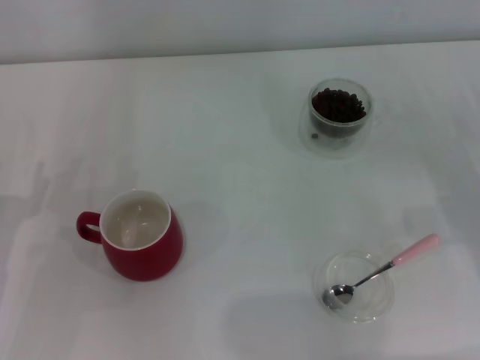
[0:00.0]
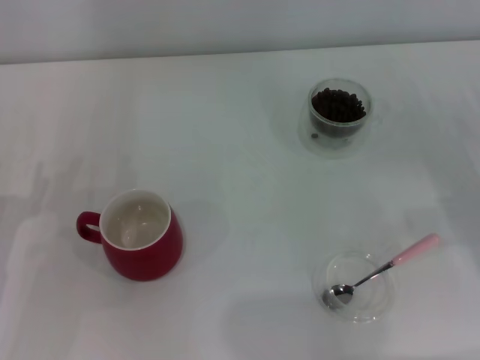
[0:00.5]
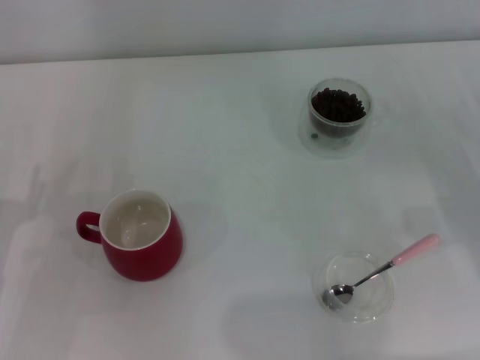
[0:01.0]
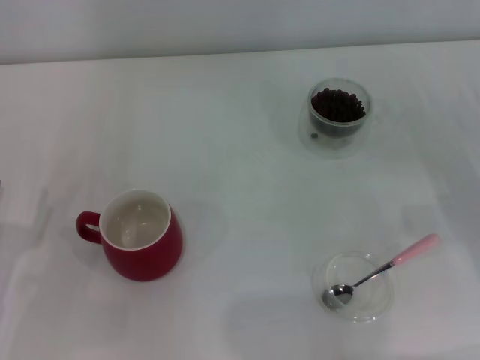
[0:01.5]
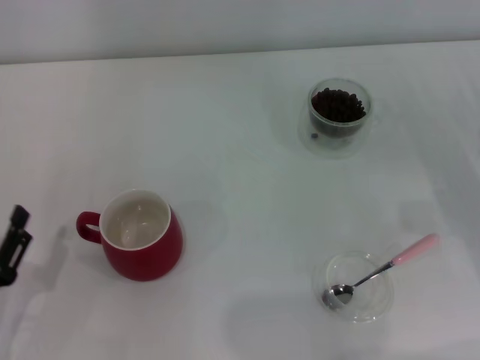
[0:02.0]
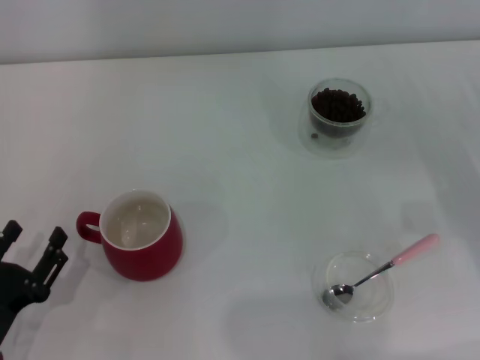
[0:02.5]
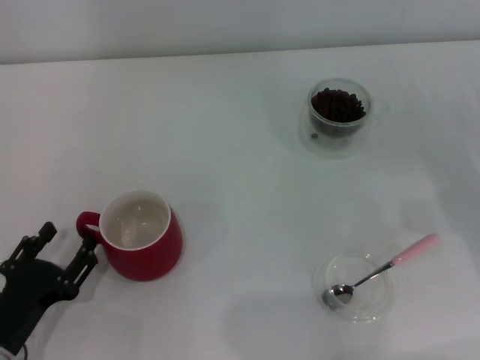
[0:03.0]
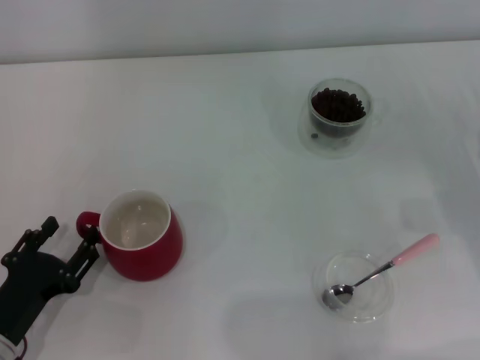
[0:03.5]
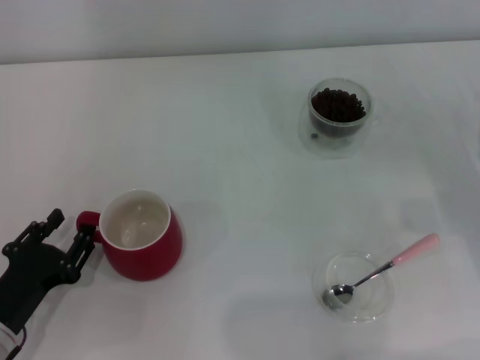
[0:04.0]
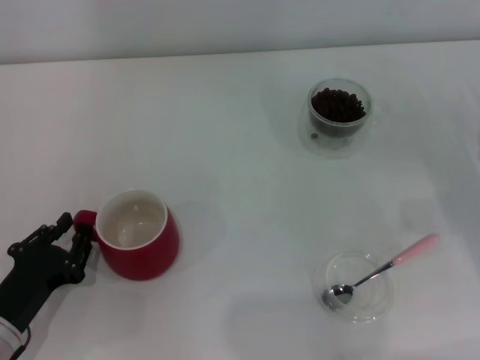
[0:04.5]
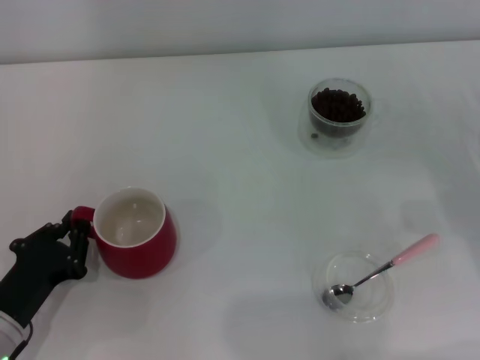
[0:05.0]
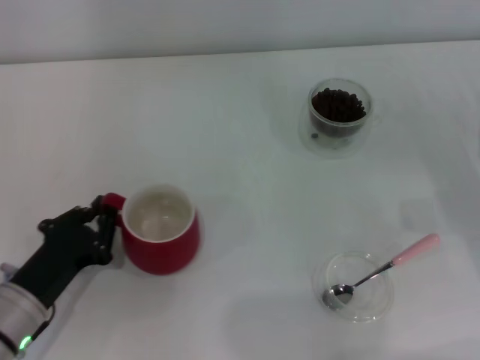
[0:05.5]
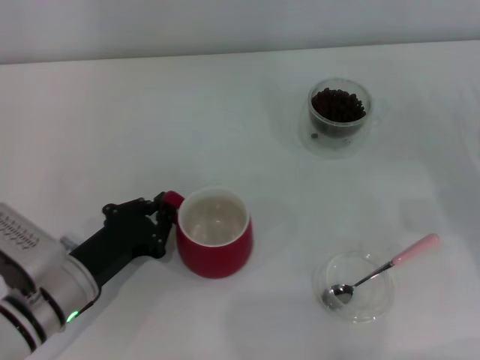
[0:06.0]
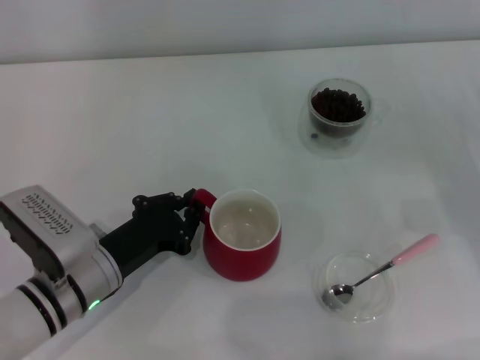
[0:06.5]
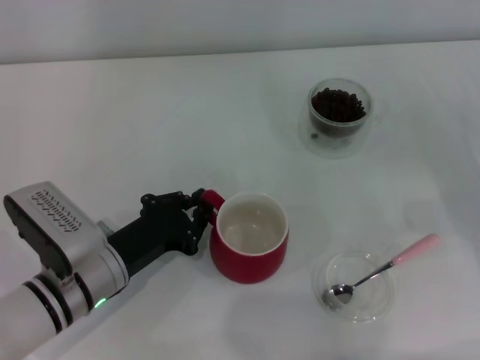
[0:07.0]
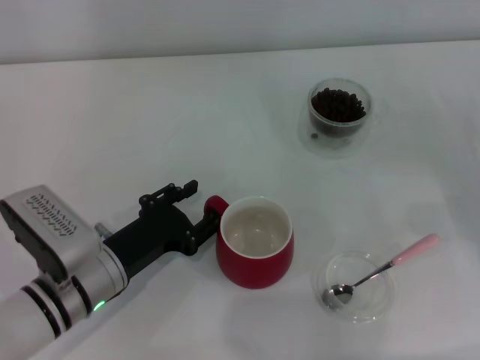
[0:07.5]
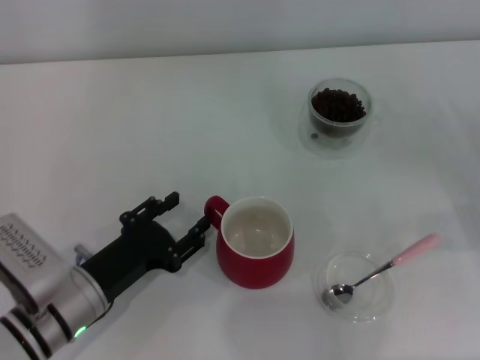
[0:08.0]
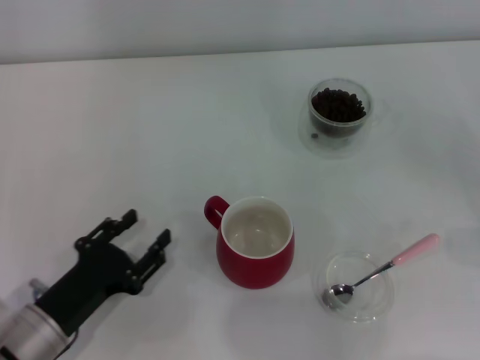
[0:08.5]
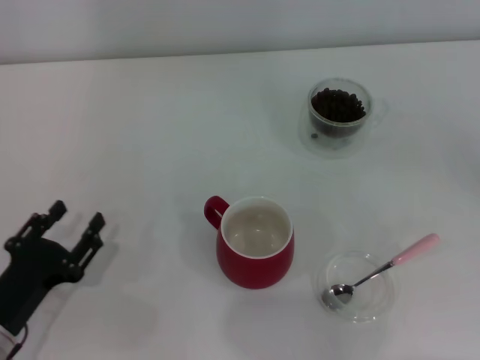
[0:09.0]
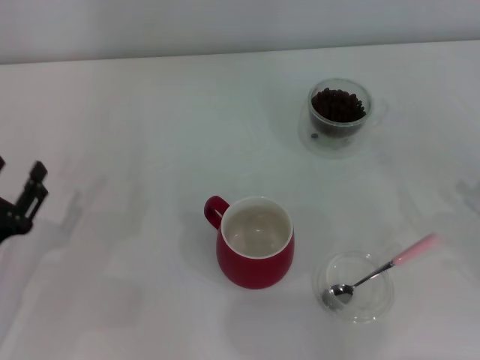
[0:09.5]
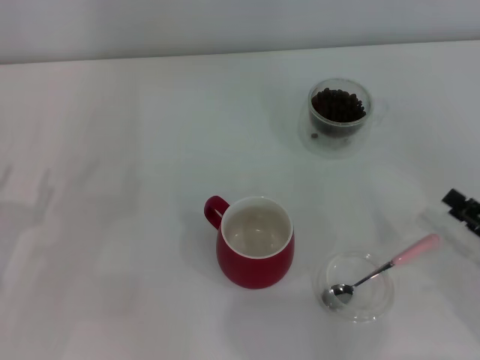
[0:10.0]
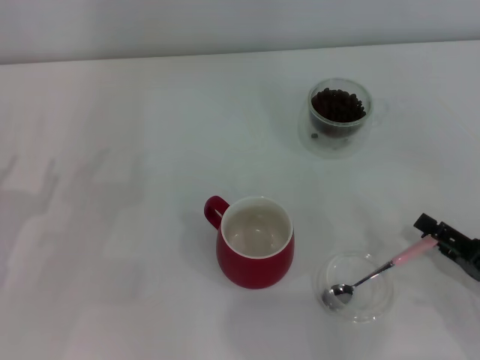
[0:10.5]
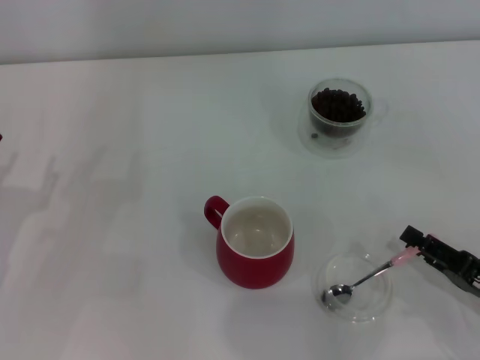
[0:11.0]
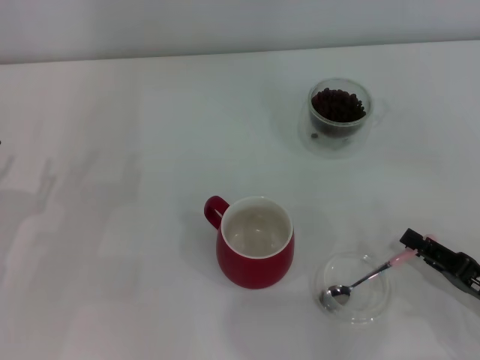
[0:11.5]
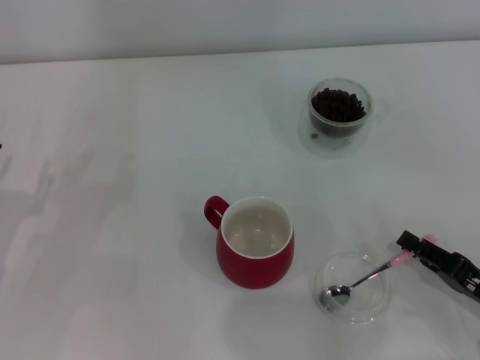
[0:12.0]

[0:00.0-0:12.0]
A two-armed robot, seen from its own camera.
Task of the whole recording: Use a pink spoon to take out the coffee beans from the glass and pour them into the red cup.
Step, 0:00.0 to 0:08.0: Move the cup to the center of view with the left gripper.
0:00.0 to 0:02.0: The left gripper is displaced backward by approximately 10 cm.
0:02.0 to 0:04.0: There are only small adjustments of the grippers.
0:04.0 to 0:06.0: The left gripper is displaced to the right and forward by about 10 cm, and closes its fingers.
0:06.0 to 0:08.0: The left gripper opens up.
0:08.0 to 0:10.0: The left gripper shifts roughly 10 cm to the left. The right gripper moves backward, about 10 cm, and opens up.
0:10.0 to 0:12.0: The right gripper closes up.

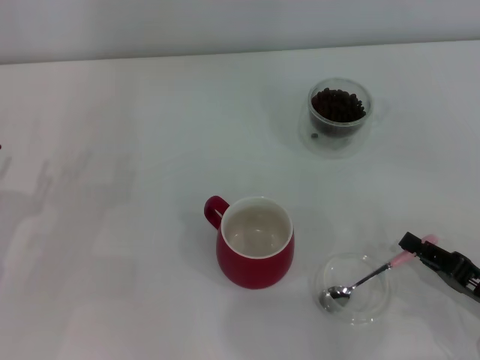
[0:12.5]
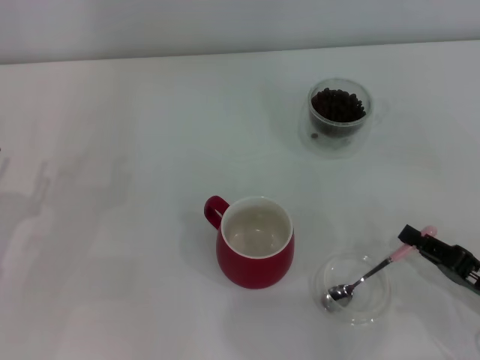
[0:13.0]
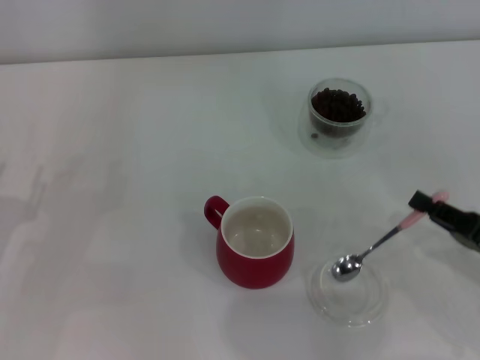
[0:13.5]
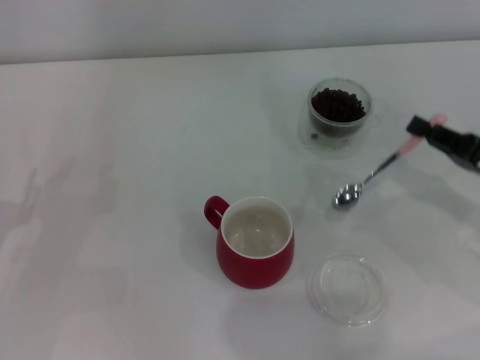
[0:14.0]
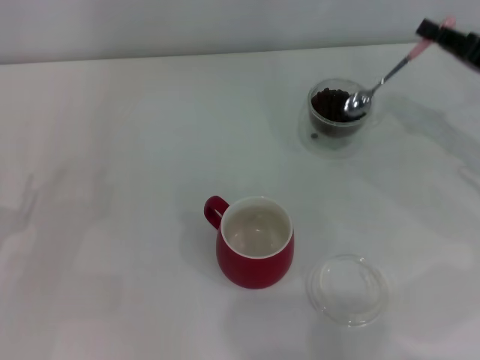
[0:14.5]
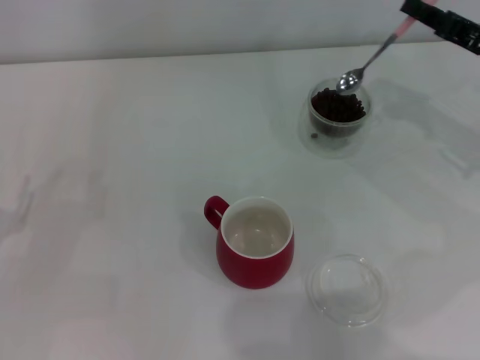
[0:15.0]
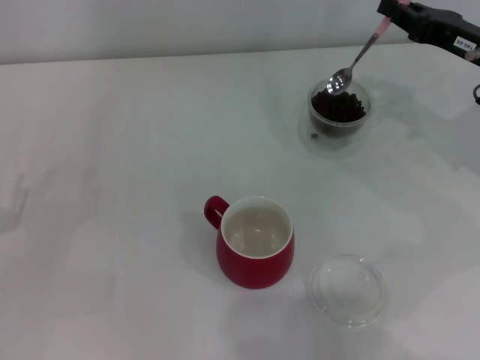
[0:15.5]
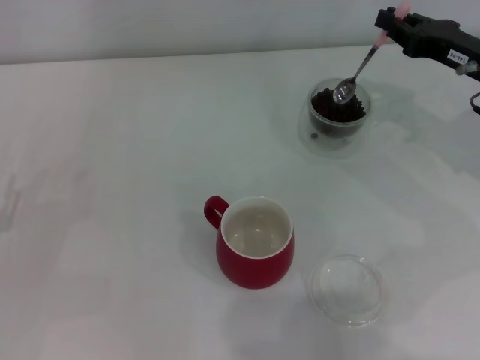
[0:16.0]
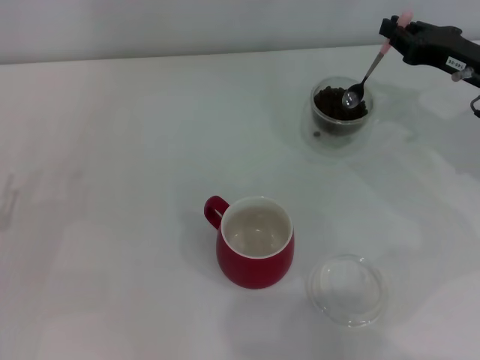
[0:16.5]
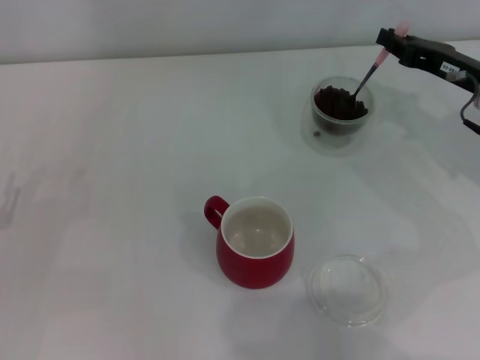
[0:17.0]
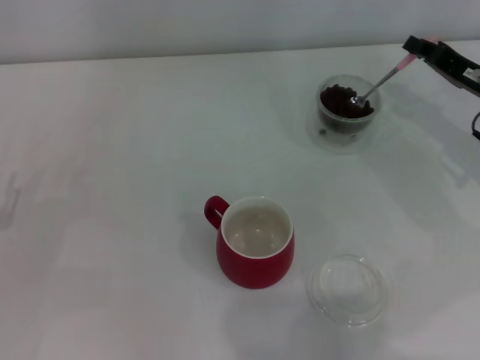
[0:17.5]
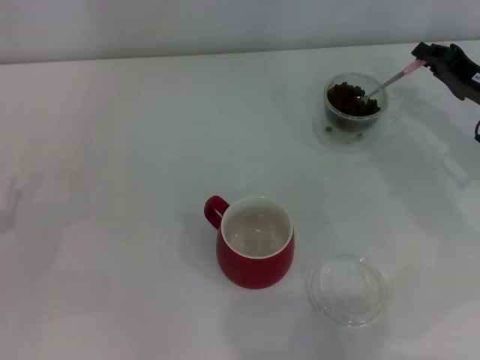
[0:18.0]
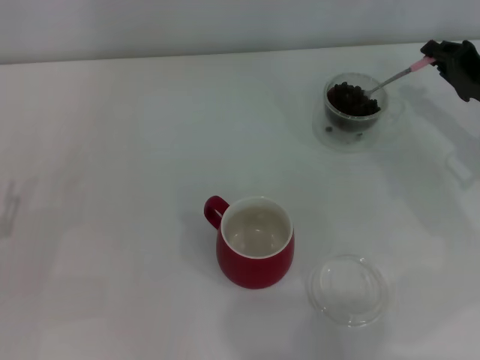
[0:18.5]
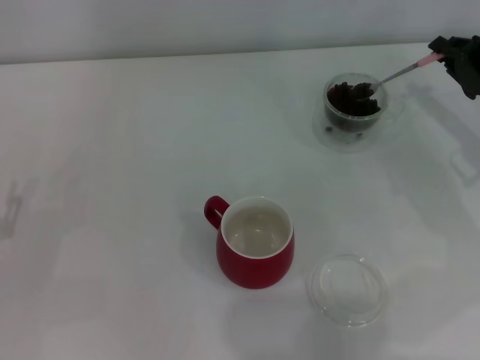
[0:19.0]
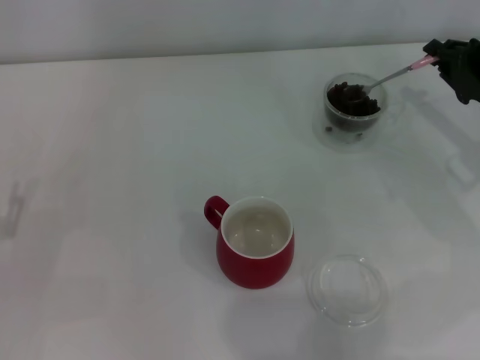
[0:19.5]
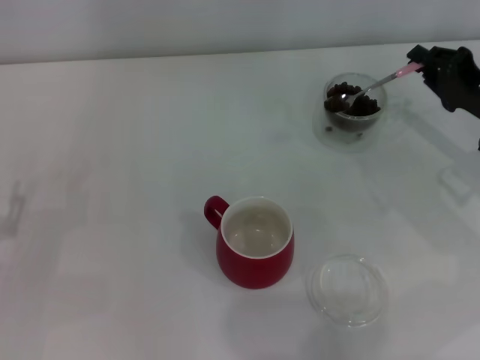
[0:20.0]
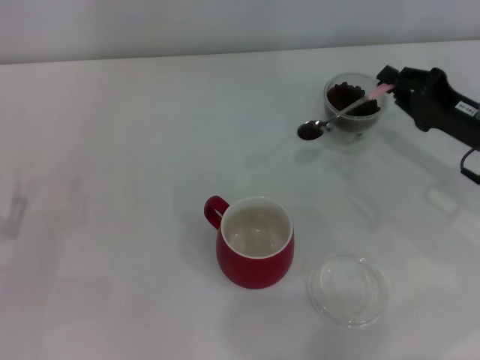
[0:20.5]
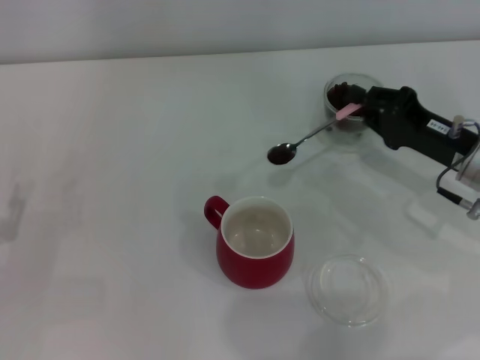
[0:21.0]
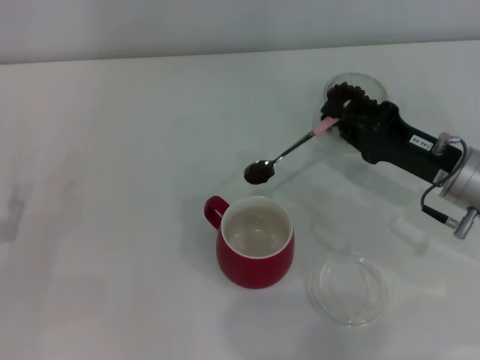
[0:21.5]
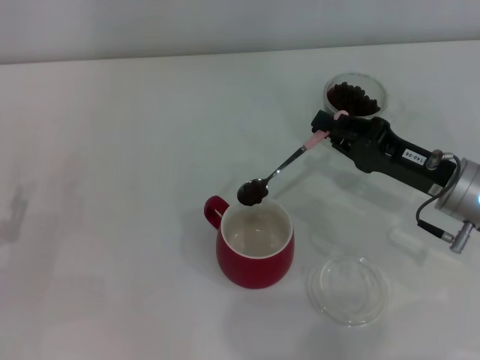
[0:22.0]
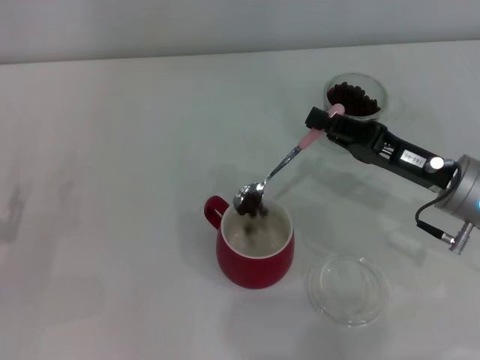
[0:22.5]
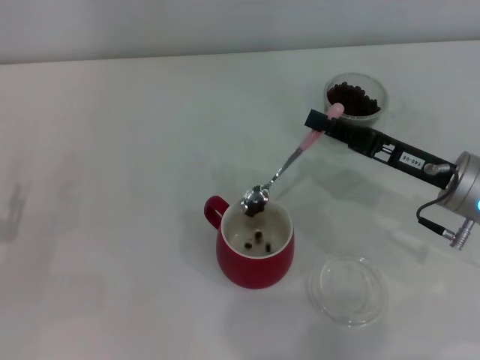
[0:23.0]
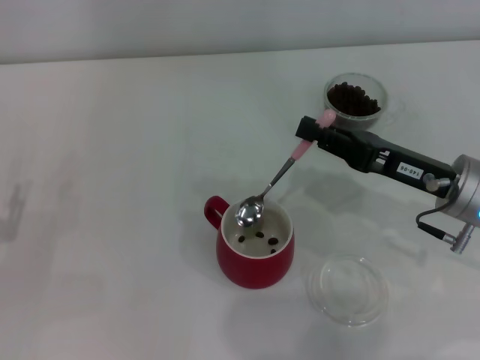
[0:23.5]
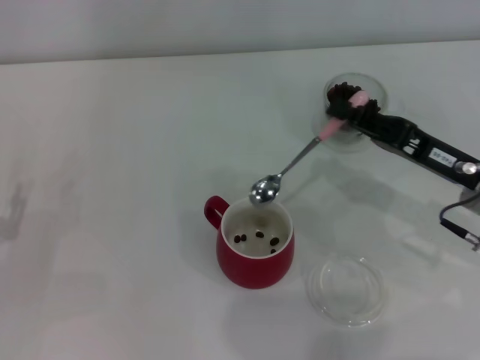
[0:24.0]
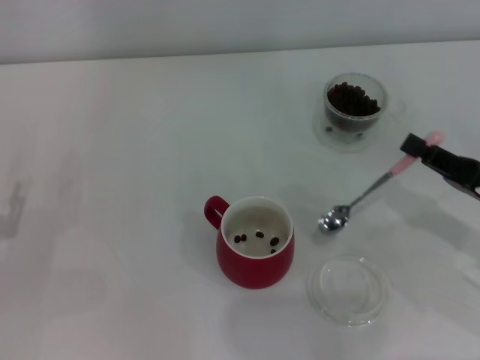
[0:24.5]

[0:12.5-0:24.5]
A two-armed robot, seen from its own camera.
Task of the whole recording: Use a pink spoon to take out the coffee beans from the glass and pour them into the red cup.
Step, 0:14.0 to 0:23.5: Scoop a spoonful of beans into the cup with the right gripper.
0:12.5 to 0:14.5: The right gripper goes about 20 cm forward and upward.
0:14.5 to 0:16.5: The right gripper changes place by some 5 cm.
0:18.5 to 0:20.5: There are only small adjustments of the grippers.
0:20.5 to 0:22.5: The right gripper shifts roughly 5 cm to the left.
0:22.5 to 0:24.5: The right gripper travels to the right and backward by approximately 10 cm.

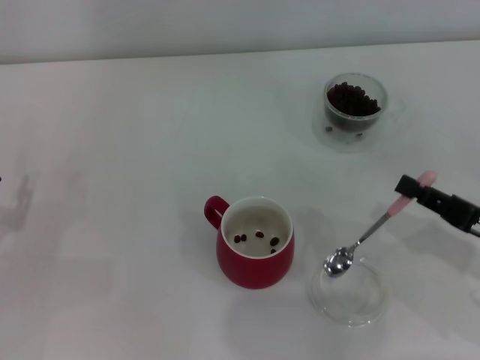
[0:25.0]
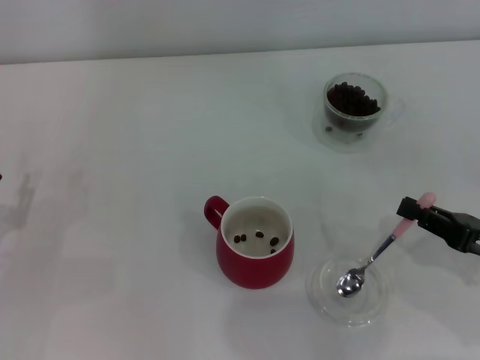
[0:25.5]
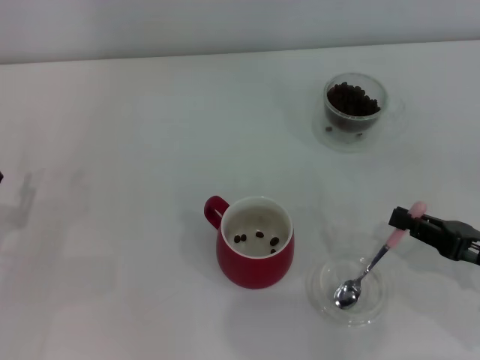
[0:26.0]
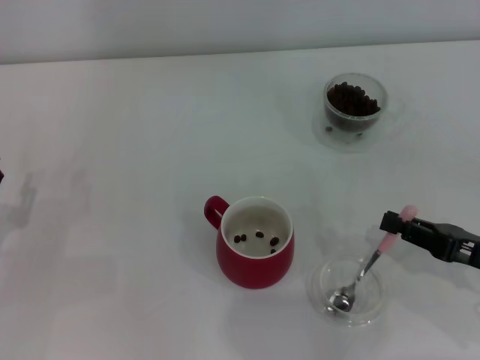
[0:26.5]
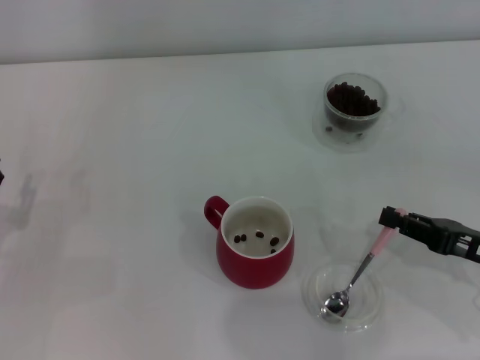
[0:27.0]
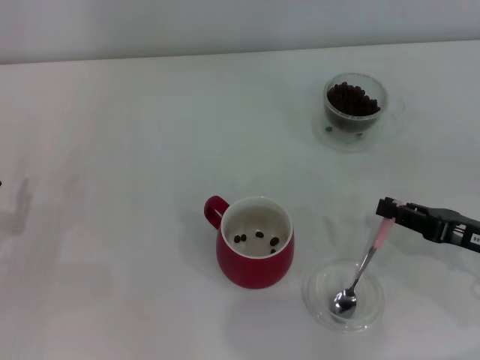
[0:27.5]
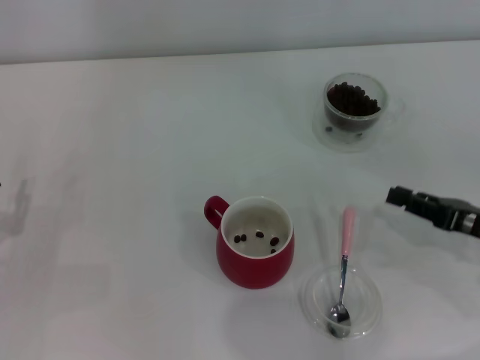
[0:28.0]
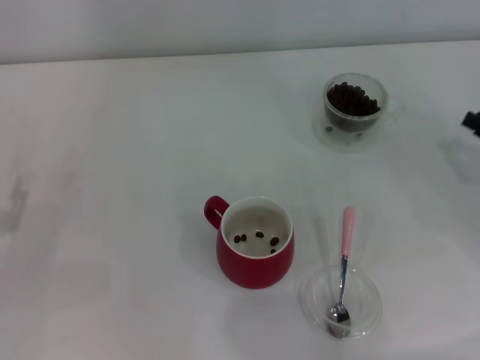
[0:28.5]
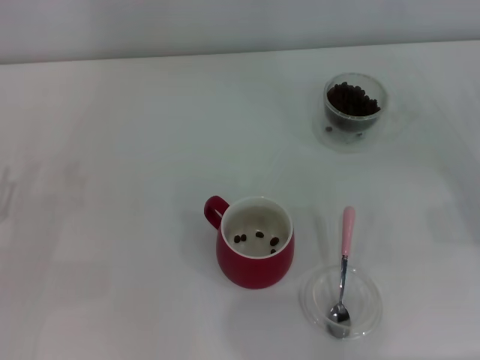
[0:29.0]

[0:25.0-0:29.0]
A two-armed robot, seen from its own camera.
Task of the whole recording: Use a pink spoon to take out the coffee beans from the glass and pour them into the red cup.
Step, 0:25.0 to 0:27.5: Place the spoon back in its original place with the right gripper.
0:25.0 to 0:27.0: The grippers move only a little.
0:27.0 to 0:29.0: The right gripper travels to the right by approximately 10 cm.
